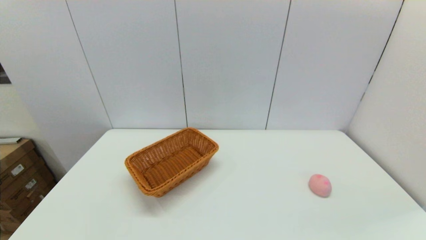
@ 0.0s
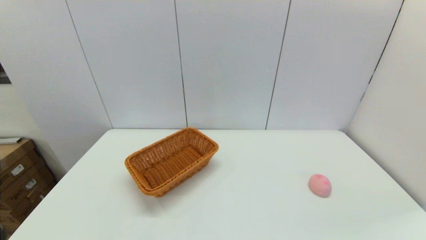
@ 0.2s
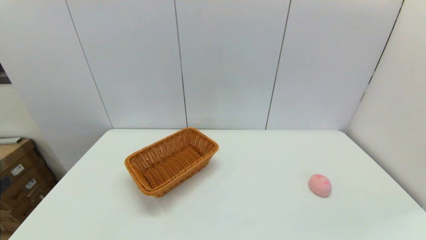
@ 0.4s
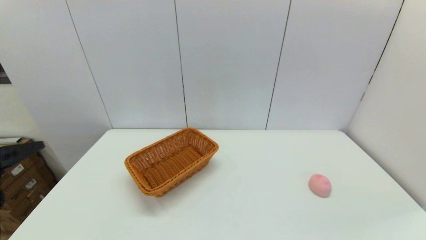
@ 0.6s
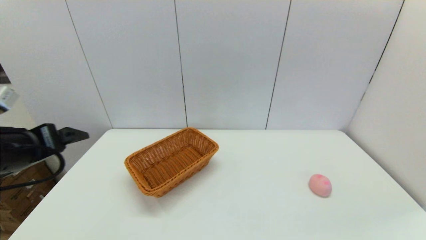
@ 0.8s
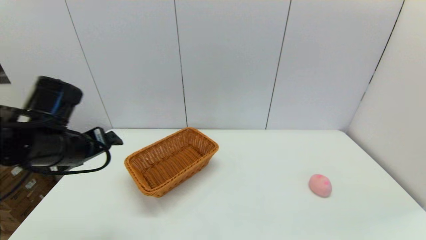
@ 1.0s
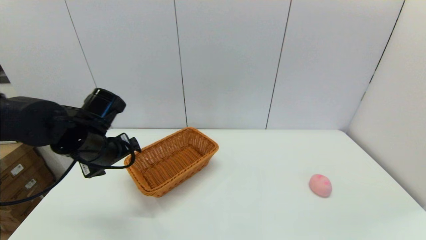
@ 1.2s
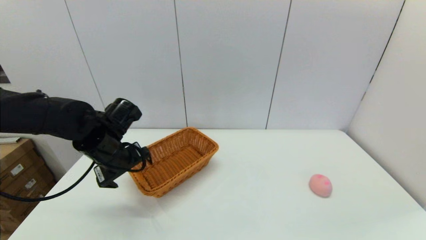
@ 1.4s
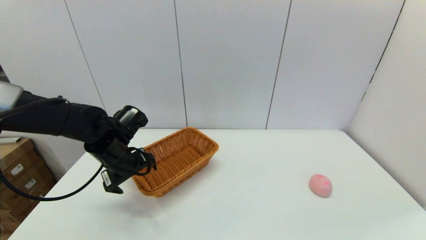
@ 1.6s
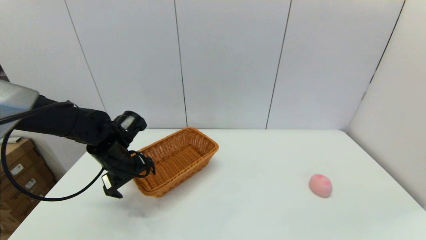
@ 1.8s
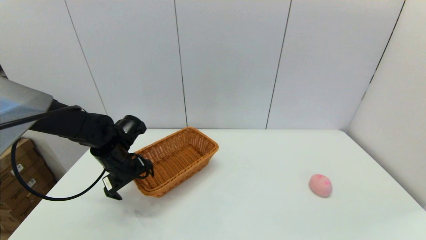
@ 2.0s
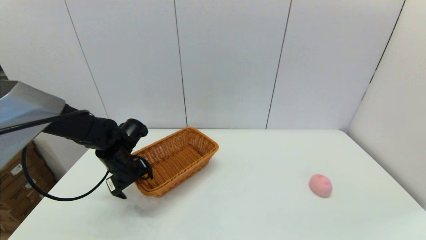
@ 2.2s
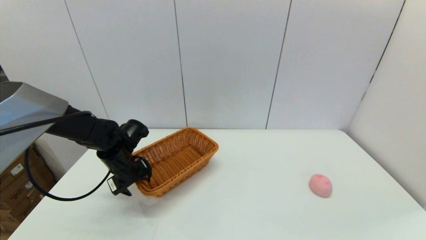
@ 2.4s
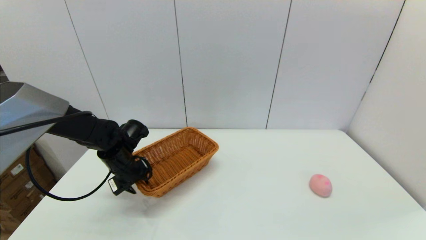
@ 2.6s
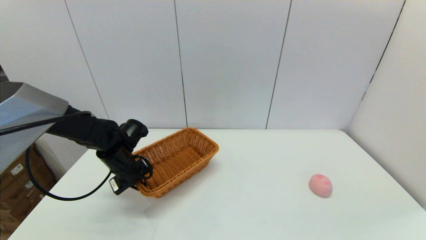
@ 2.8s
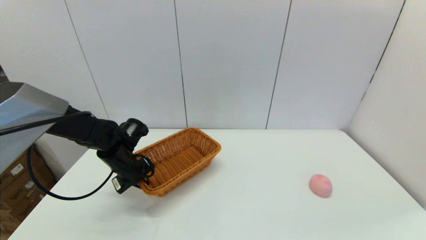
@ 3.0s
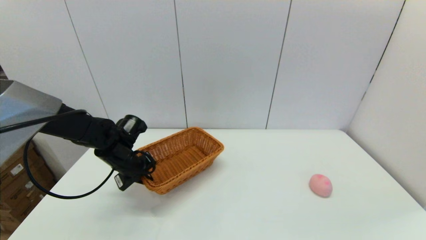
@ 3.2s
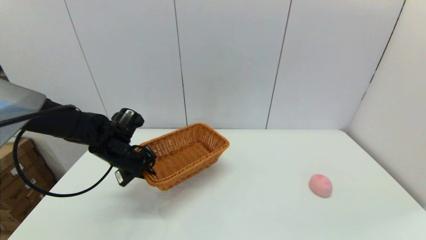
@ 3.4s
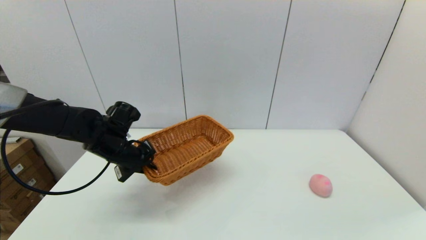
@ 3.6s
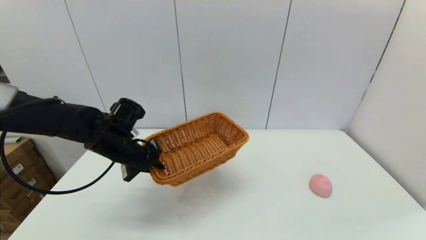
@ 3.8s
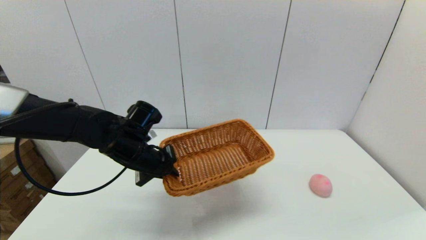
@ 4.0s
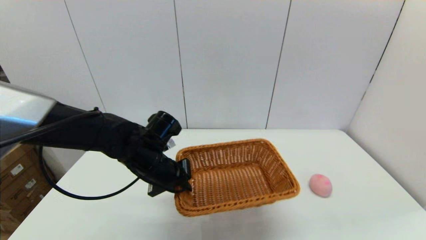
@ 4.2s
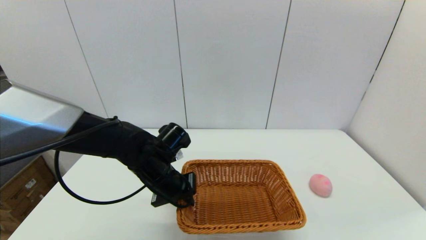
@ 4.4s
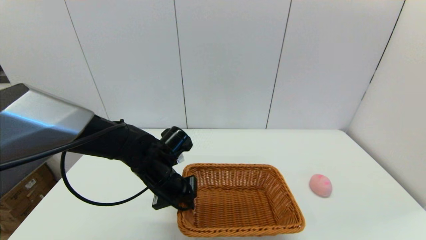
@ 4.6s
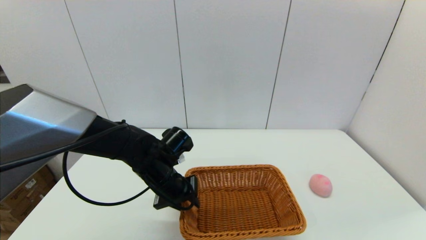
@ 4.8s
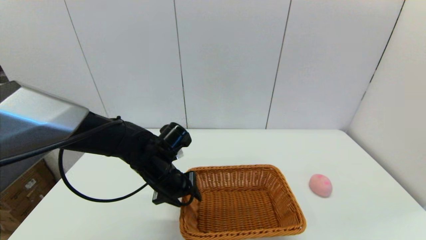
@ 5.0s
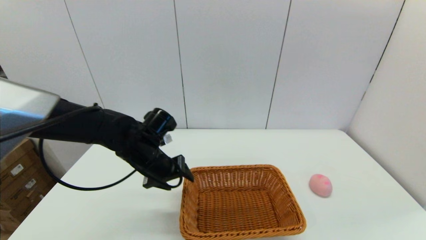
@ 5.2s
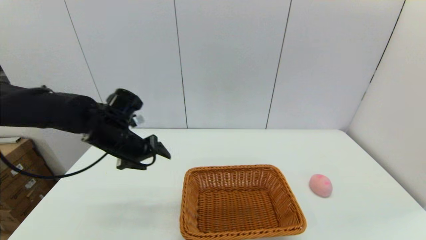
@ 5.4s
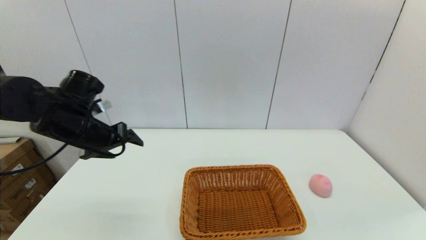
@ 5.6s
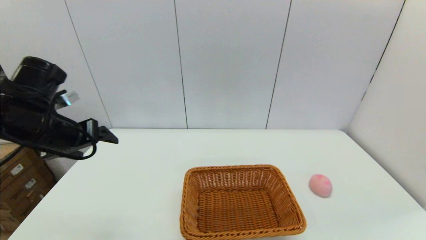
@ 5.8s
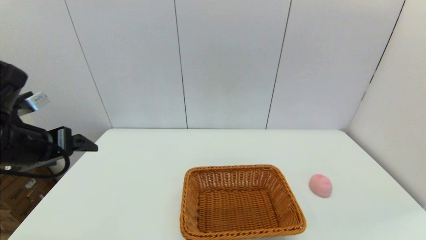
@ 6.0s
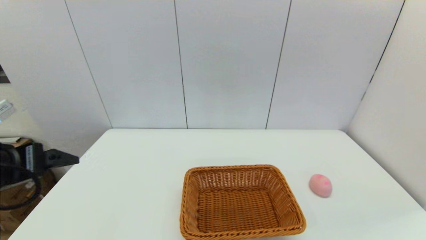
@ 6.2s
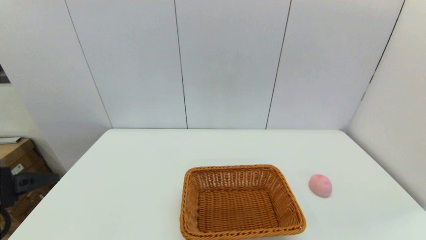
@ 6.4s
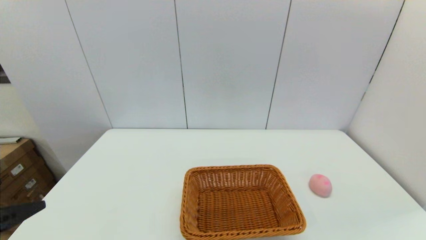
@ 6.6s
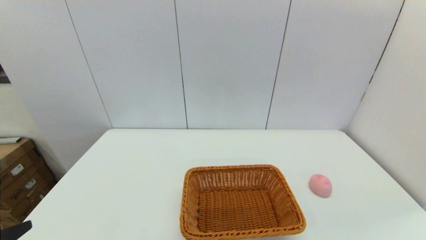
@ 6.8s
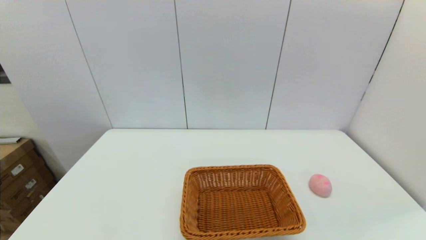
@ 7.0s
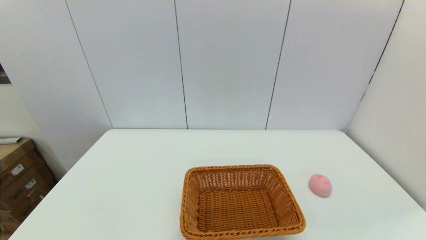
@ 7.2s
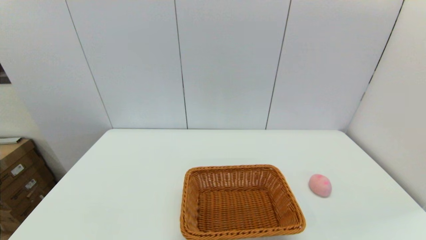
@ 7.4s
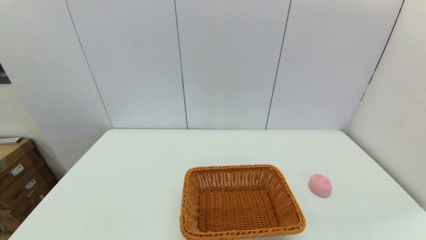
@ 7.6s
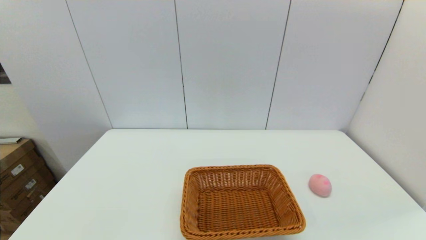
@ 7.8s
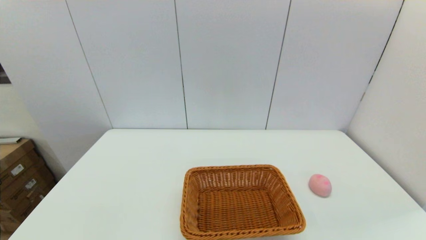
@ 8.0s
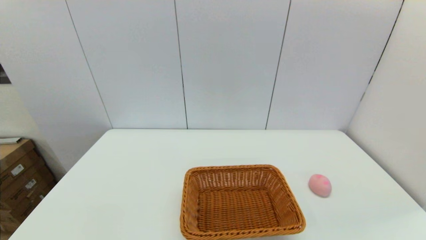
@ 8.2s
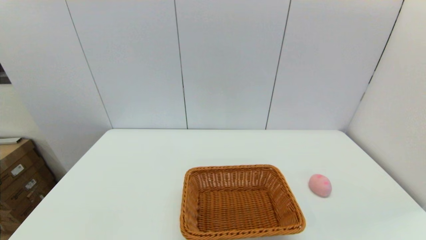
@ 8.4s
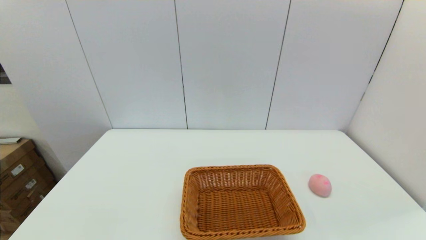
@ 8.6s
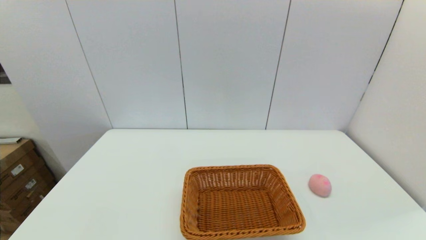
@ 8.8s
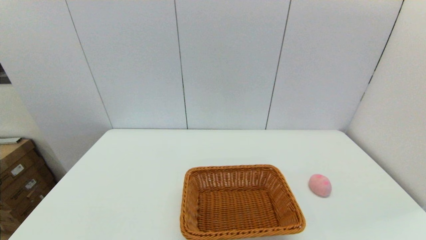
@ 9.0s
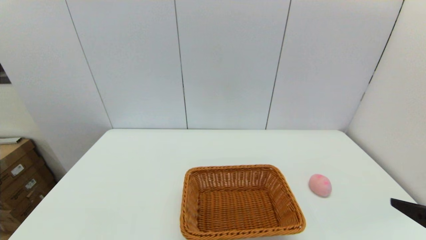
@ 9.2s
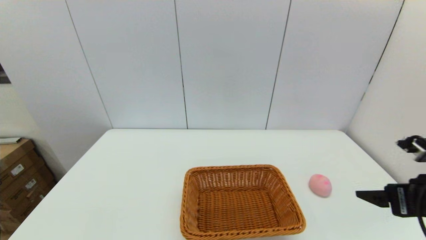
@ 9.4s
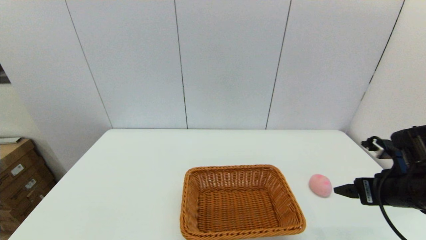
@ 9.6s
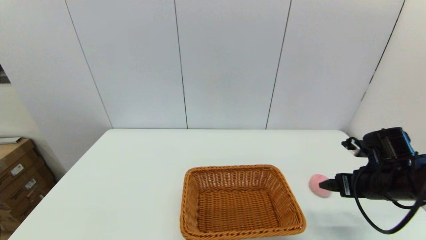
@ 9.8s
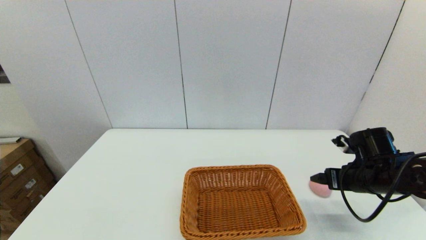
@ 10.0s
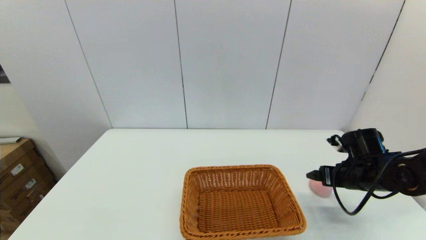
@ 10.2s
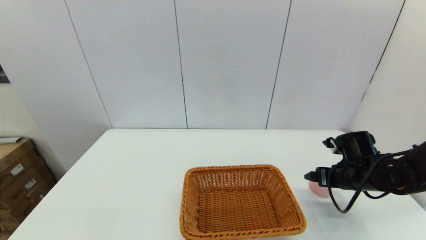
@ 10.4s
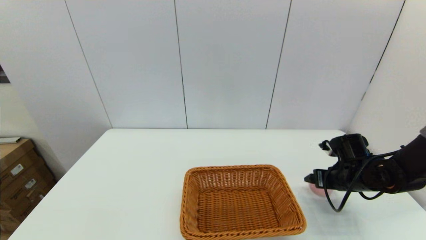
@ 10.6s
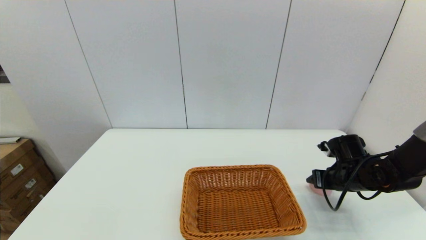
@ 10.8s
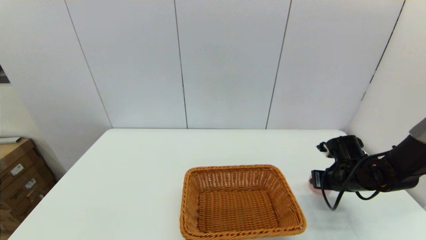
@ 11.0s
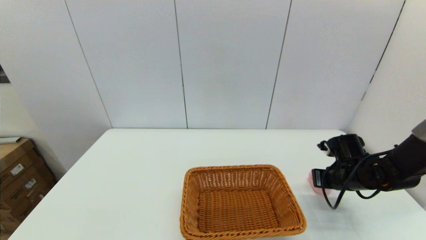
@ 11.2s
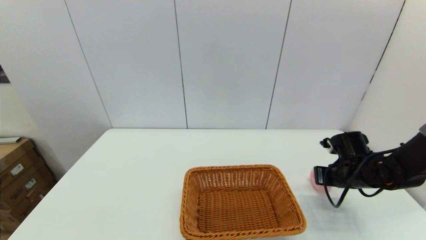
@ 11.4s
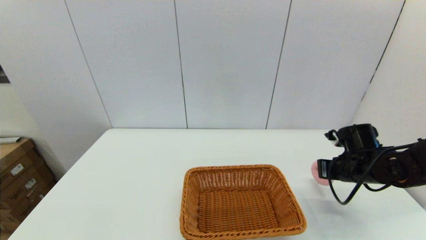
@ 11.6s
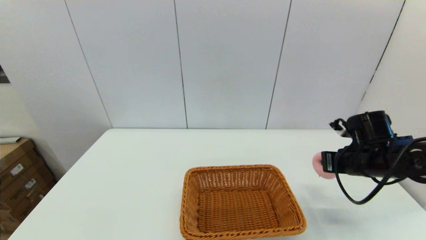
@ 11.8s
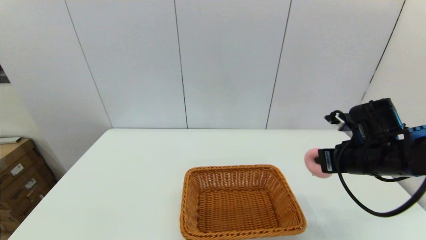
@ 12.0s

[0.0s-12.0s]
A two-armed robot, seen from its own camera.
Step, 0.0s to 3.0s: Grasp the light basket with the left gripper.
Step, 3.2s to 4.8s: Place the light basket on the middle of the table with the left gripper.
Step, 5.0s to 11.2s: Grasp the peach with the right gripper.
0.0s to 1.6s: The left gripper goes approximately 35 cm forward.
1.6s to 3.0s: The left gripper shifts approximately 5 cm downward, and closes up.
3.0s to 4.4s: The left gripper heads to the right and backward, covering roughly 15 cm.
4.4s to 6.0s: The left gripper heads to the left, upward and backward, covering roughly 25 cm, and opens up.
6.0s to 7.6s: The left gripper goes some 25 cm backward and downward.
9.0s to 10.4s: The right gripper moves forward and downward, some 30 cm.
10.4s to 12.0s: The right gripper goes about 10 cm upward and to the left, and closes its fingers.

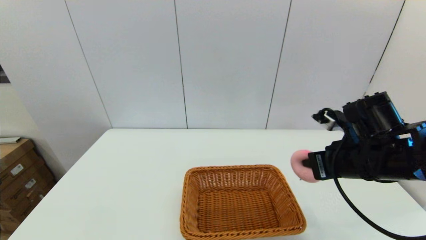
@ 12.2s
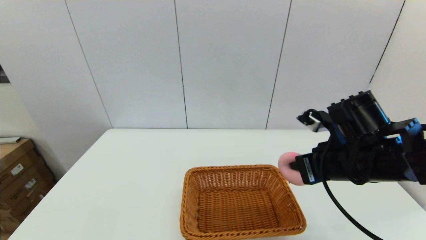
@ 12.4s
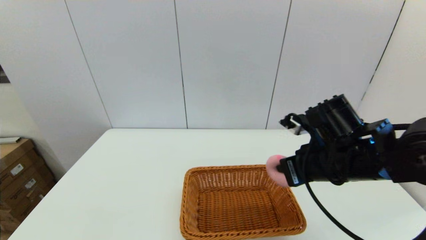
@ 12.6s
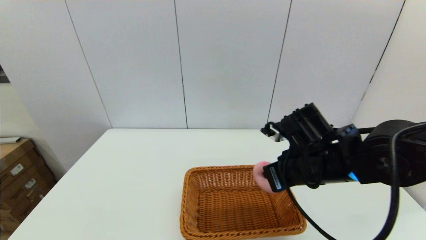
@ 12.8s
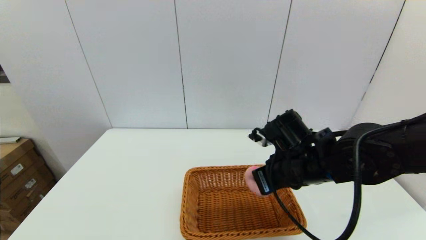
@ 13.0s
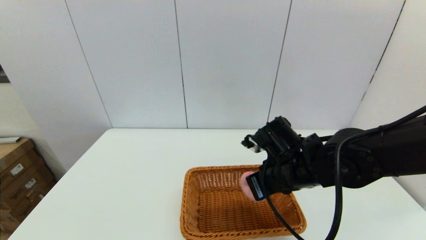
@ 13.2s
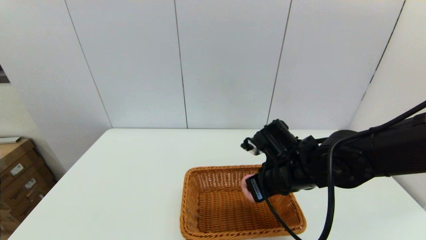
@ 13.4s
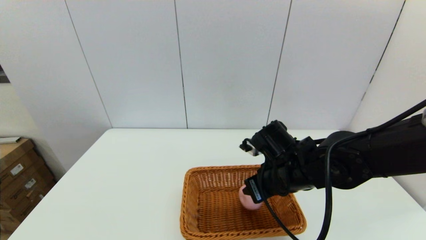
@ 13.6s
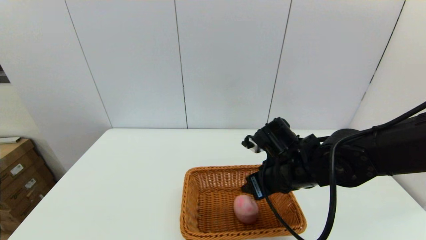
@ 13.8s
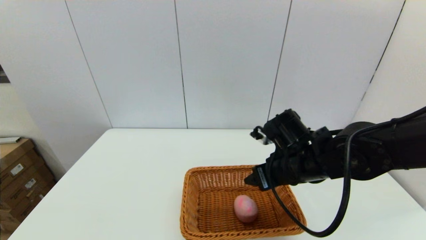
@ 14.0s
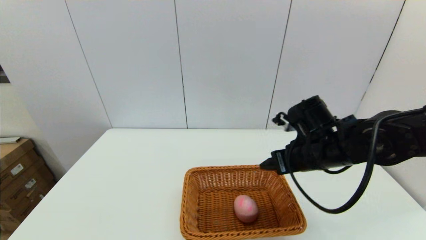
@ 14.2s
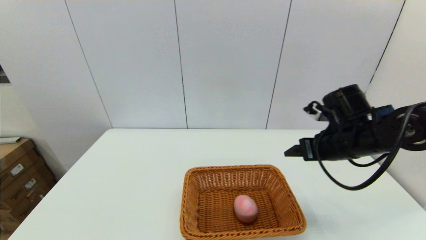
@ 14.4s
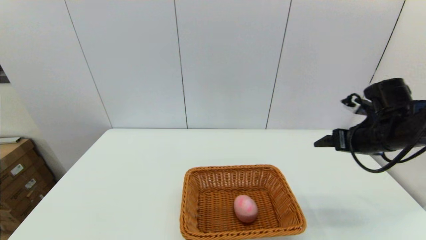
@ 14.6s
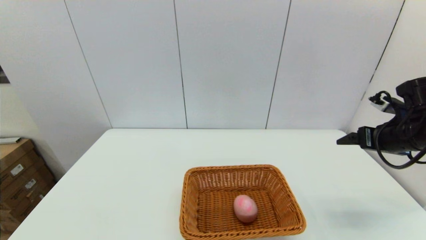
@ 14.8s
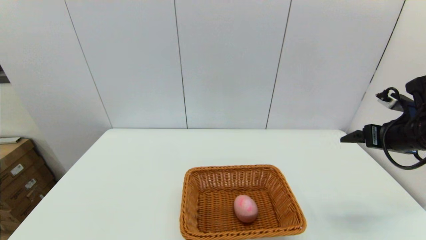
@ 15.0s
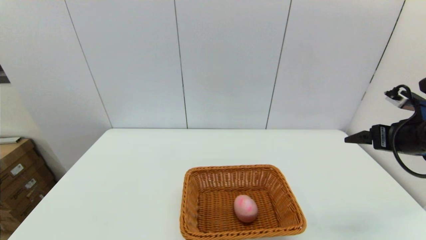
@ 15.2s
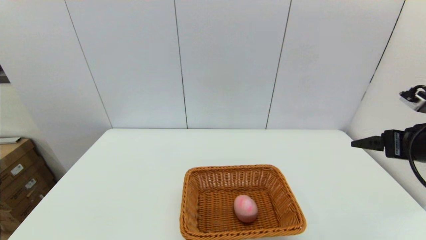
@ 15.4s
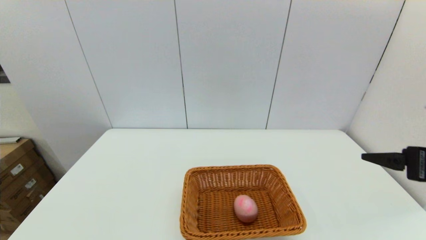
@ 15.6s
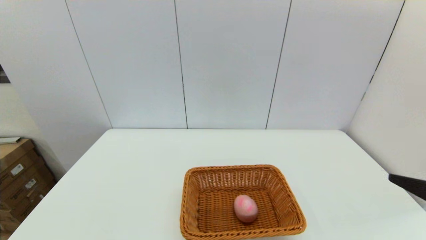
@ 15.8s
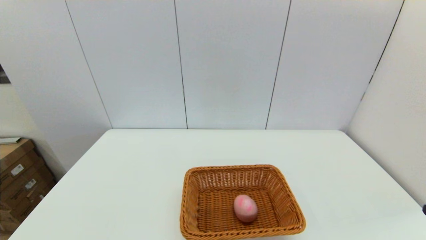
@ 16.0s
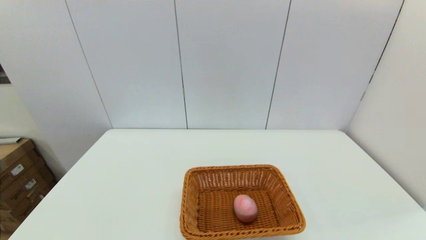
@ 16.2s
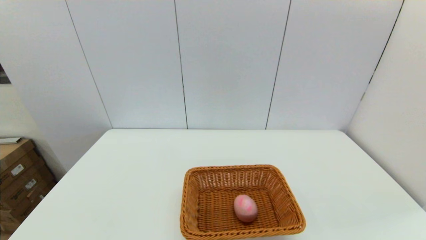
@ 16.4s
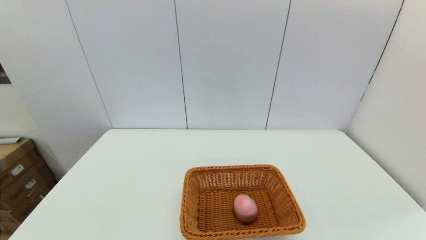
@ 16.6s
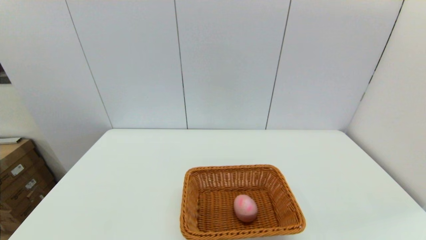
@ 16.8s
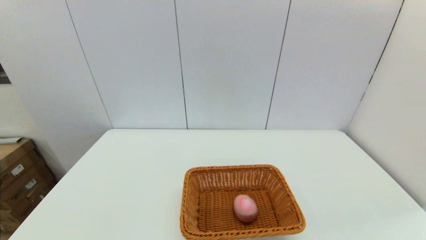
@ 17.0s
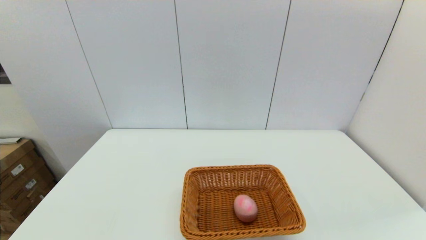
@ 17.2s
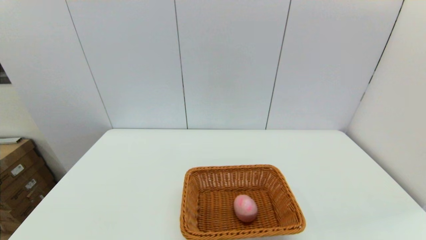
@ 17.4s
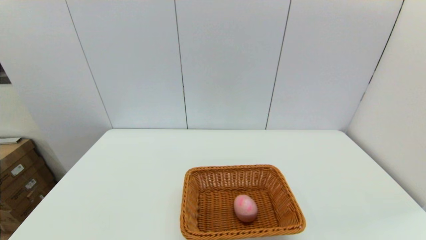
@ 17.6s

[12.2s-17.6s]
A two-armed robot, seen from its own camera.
Step, 12.2s to 13.8s: Place the peach into the light basket with the right gripper.
12.2s to 13.6s: The right gripper shifts some 10 cm to the left and downward, and opens.
13.6s to 15.0s: The right gripper moves to the right, some 25 cm, and opens its fingers.
15.0s to 16.2s: The right gripper goes roughly 30 cm backward.
